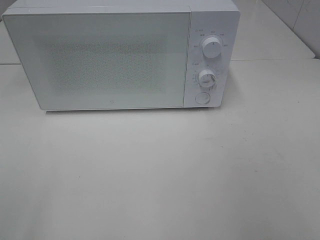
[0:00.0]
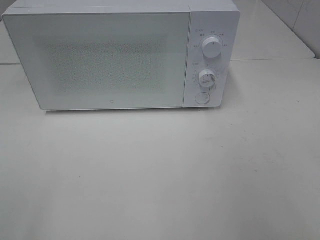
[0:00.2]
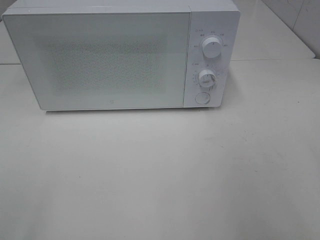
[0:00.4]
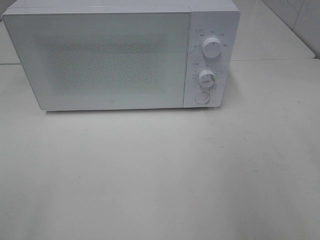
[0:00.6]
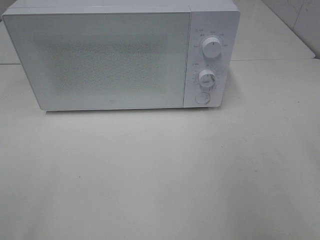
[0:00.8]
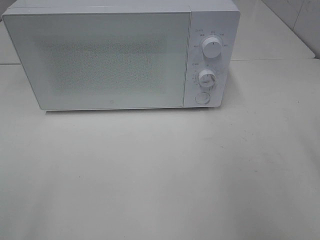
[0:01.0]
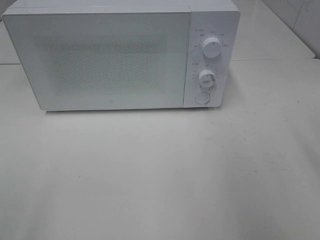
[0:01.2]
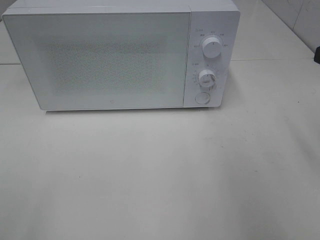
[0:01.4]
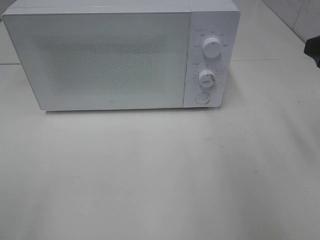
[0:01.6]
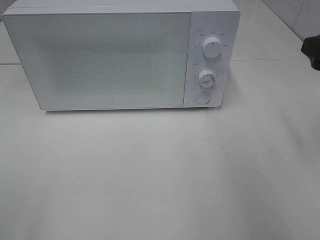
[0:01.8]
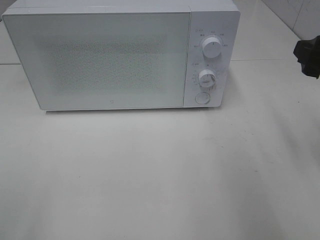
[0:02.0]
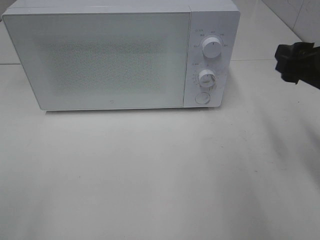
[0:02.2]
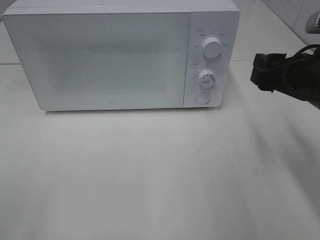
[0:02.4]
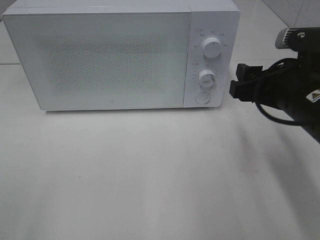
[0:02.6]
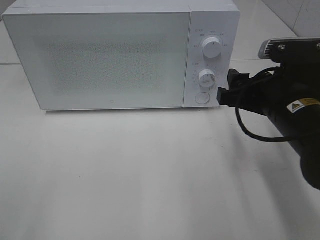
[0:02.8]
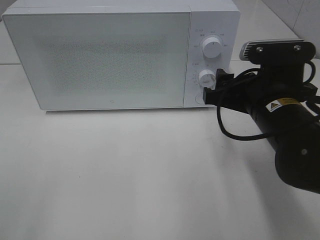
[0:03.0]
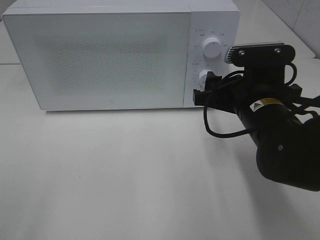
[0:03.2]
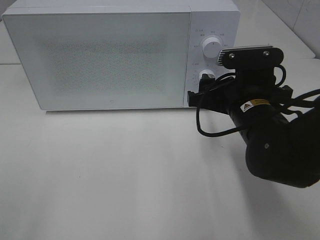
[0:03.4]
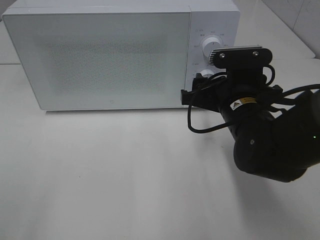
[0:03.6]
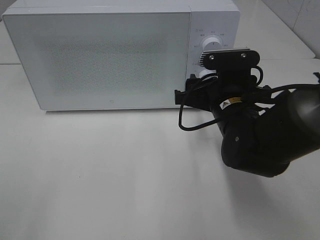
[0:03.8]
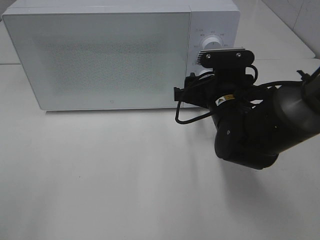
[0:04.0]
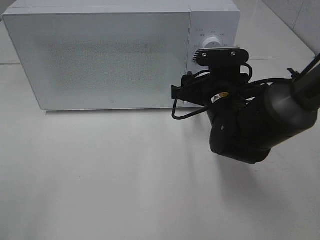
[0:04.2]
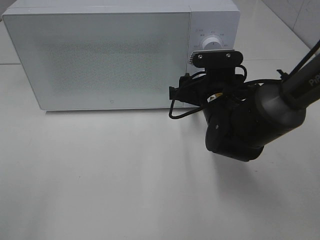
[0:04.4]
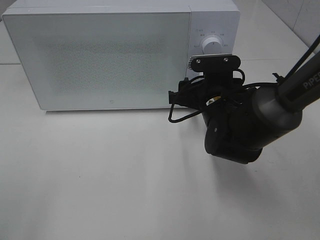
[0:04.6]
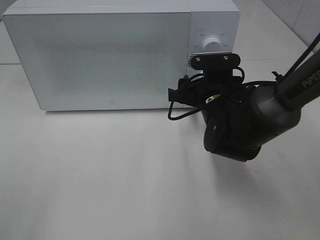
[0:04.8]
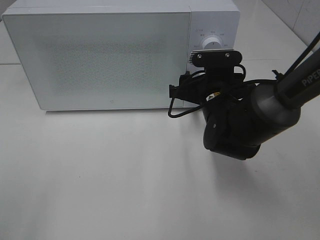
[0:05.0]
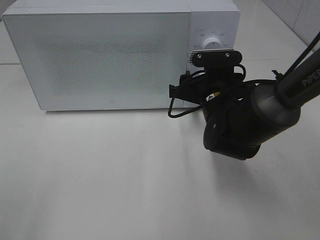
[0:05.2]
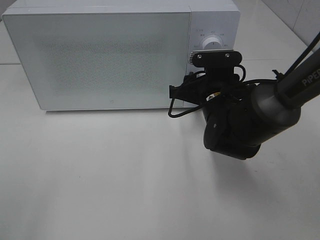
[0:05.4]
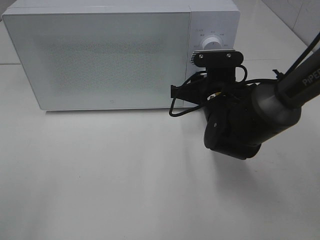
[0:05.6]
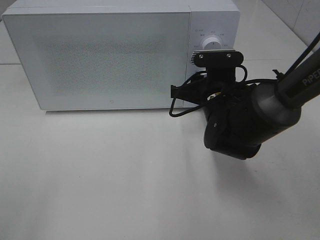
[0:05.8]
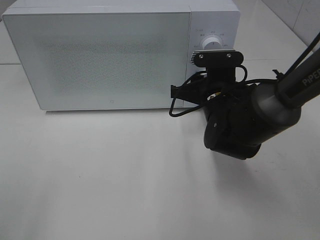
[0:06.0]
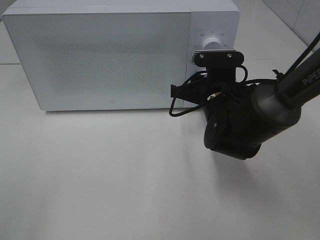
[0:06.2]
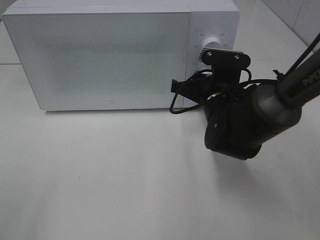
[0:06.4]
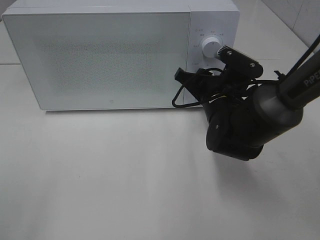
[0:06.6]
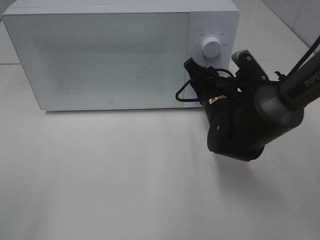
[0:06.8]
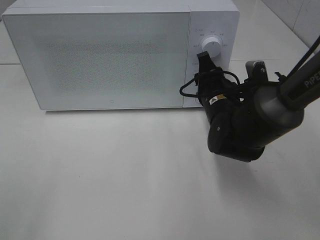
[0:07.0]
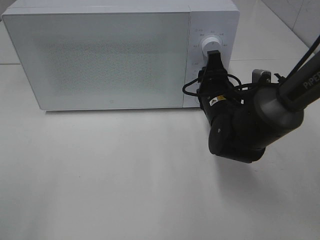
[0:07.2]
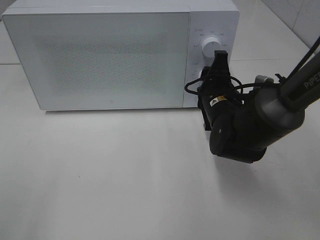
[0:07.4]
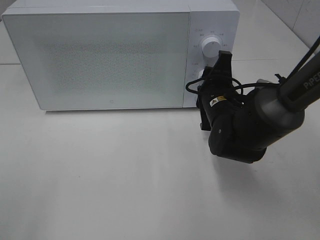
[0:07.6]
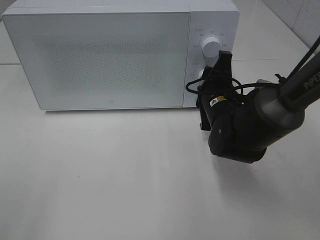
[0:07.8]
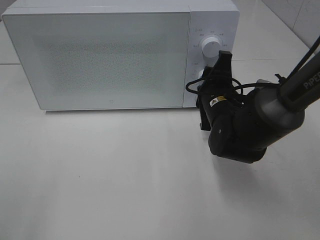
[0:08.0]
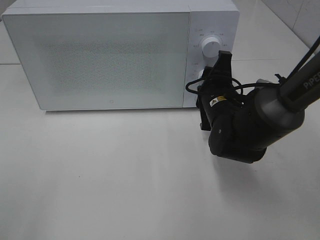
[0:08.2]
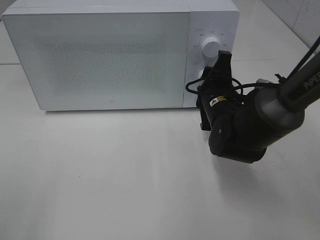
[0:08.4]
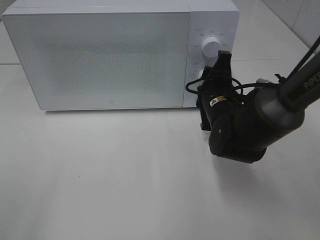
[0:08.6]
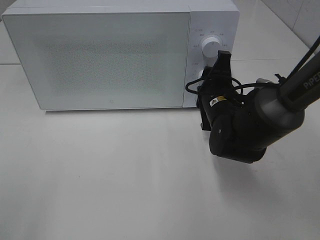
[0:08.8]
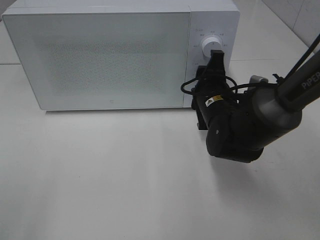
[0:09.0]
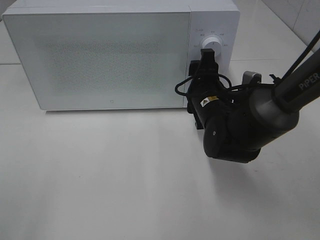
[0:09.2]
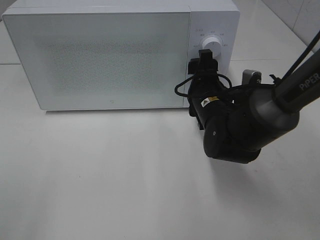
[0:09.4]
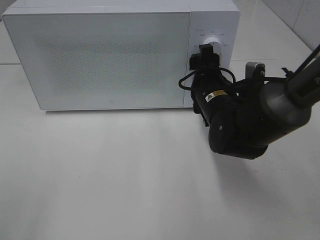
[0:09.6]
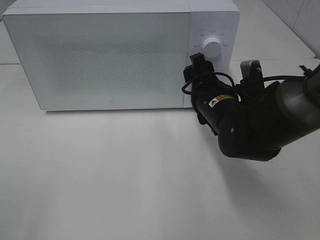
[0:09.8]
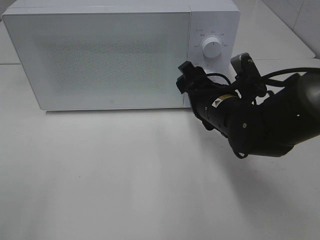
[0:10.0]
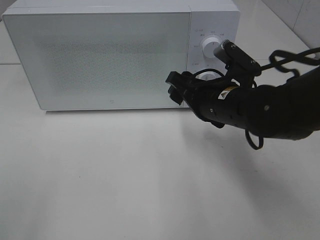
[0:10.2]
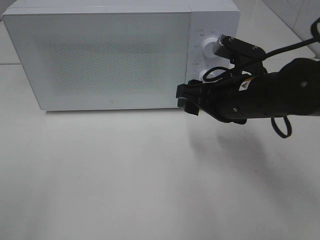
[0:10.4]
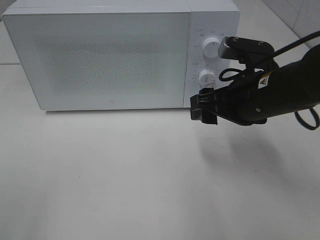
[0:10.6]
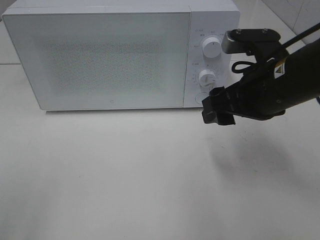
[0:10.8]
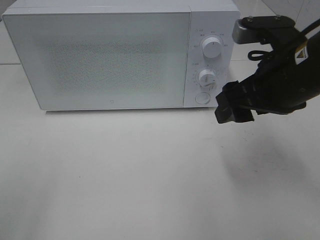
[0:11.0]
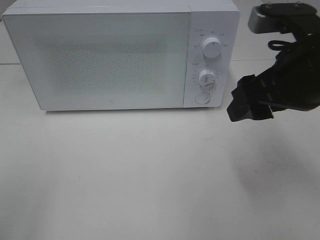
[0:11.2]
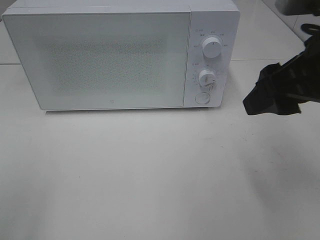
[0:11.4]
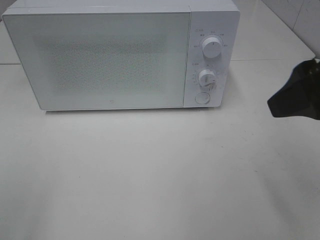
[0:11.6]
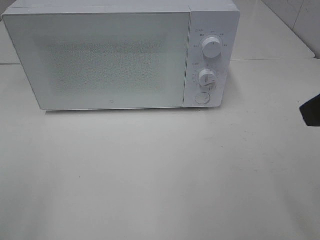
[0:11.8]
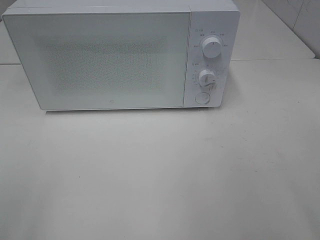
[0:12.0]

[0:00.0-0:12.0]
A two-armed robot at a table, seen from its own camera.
Task of the whole recording: Heat Sandwich.
Step, 0:00.0 to 0:09.2: Right hand: twist timer button.
0:01.6 to 0:03.0: The right gripper moves to the left and downward, approximately 15 cm.
0:03.0 to 0:04.4: The right gripper is displaced forward and downward by approximately 10 cm.
0:04.4 to 0:06.0: The right gripper closes.
0:07.6 to 0:09.0: The grippers make only small movements.
0:09.0 to 0:10.4: The right gripper is displaced upward and backward by some 10 cm.
0:10.4 to 0:12.0: The right gripper moves backward, upward and to the right, about 25 cm.

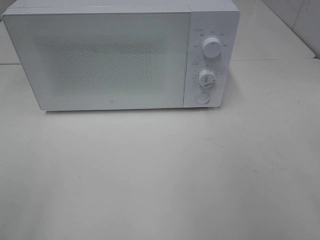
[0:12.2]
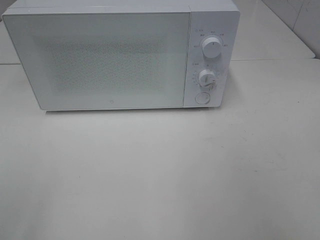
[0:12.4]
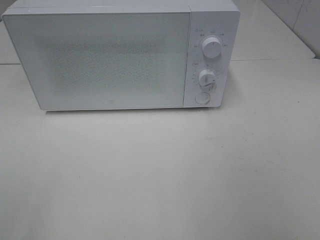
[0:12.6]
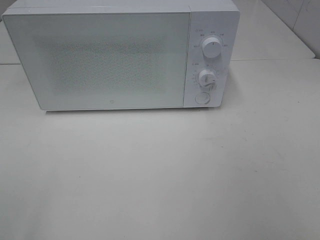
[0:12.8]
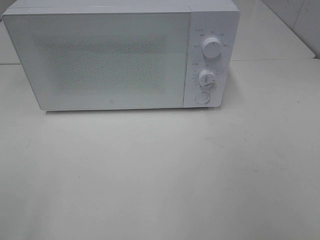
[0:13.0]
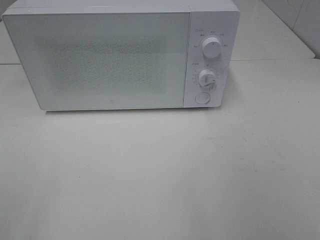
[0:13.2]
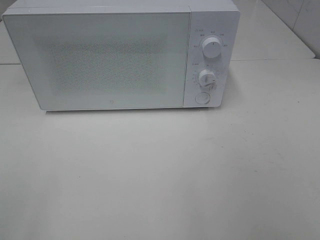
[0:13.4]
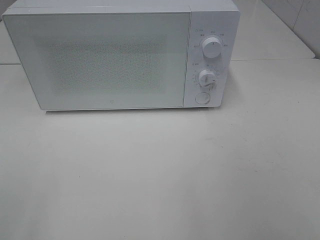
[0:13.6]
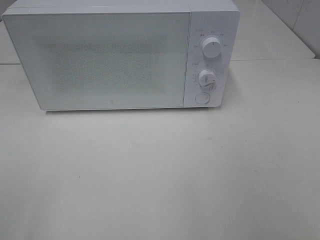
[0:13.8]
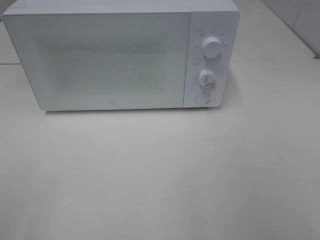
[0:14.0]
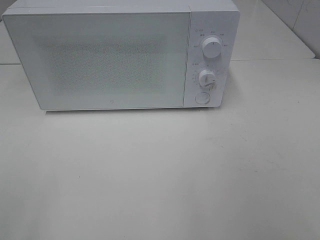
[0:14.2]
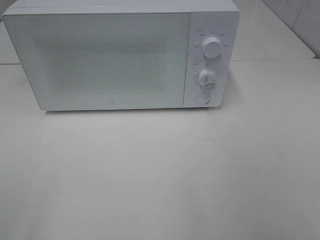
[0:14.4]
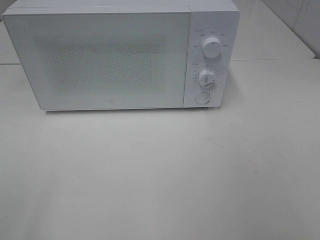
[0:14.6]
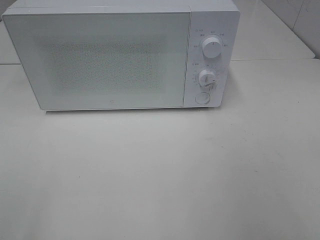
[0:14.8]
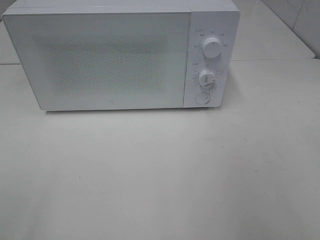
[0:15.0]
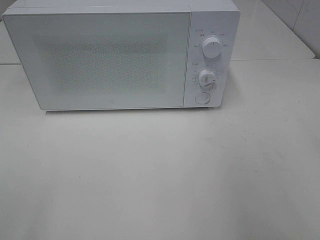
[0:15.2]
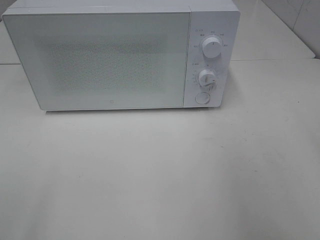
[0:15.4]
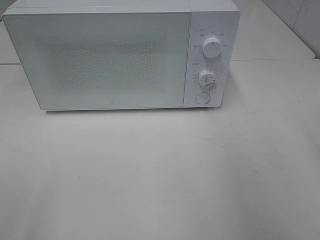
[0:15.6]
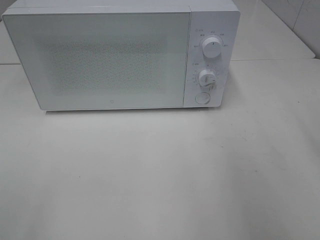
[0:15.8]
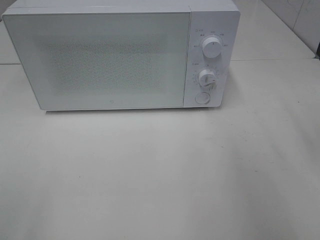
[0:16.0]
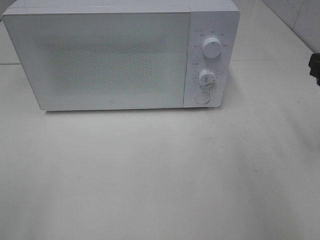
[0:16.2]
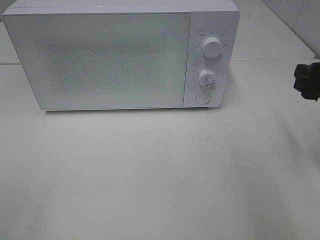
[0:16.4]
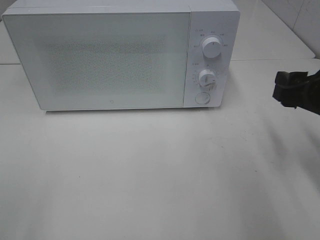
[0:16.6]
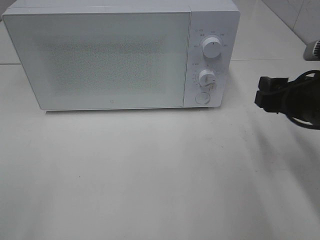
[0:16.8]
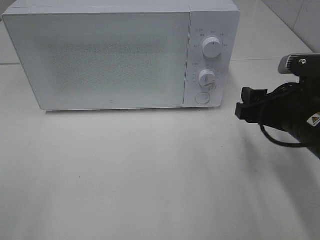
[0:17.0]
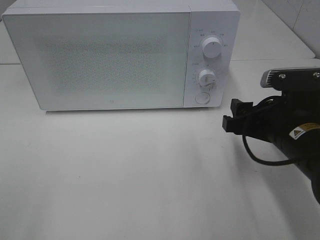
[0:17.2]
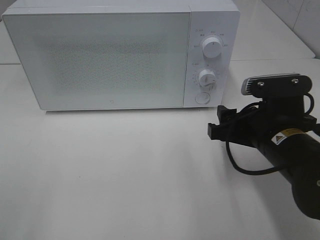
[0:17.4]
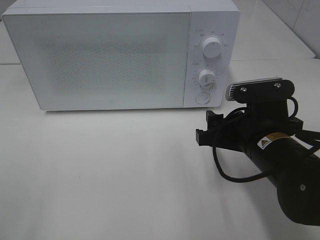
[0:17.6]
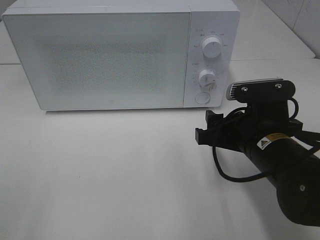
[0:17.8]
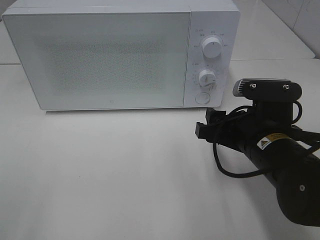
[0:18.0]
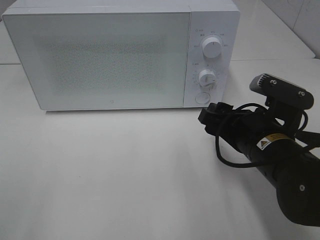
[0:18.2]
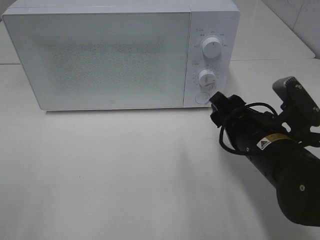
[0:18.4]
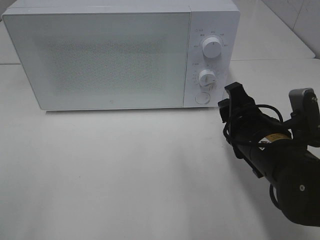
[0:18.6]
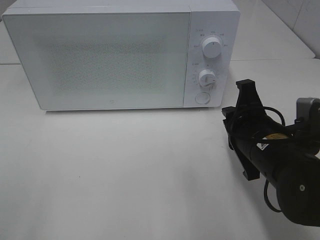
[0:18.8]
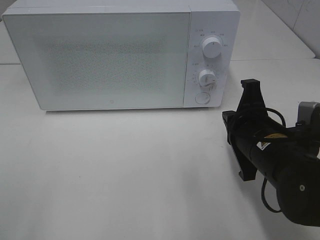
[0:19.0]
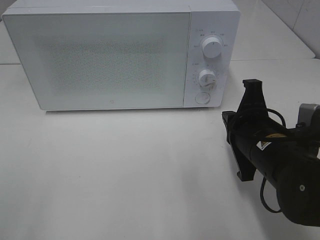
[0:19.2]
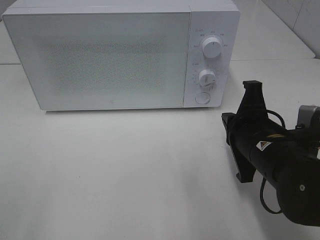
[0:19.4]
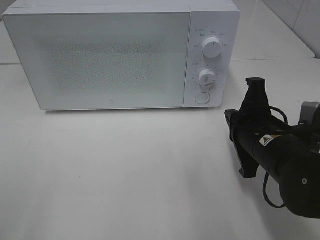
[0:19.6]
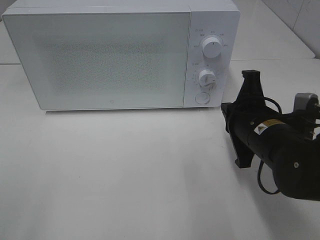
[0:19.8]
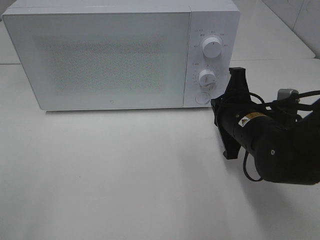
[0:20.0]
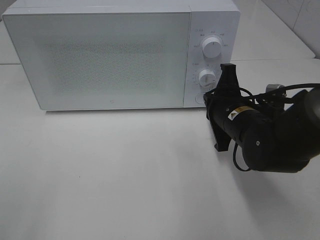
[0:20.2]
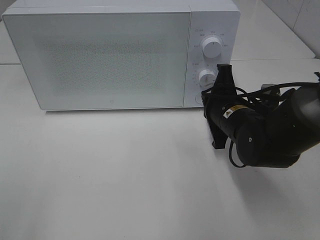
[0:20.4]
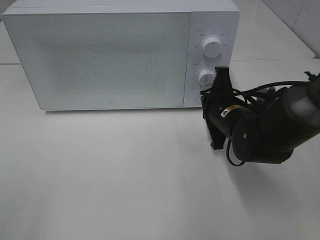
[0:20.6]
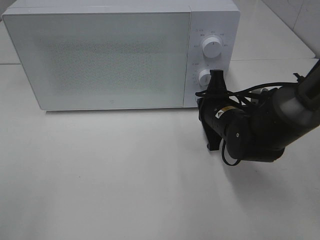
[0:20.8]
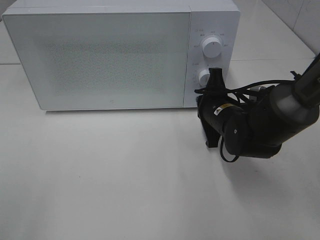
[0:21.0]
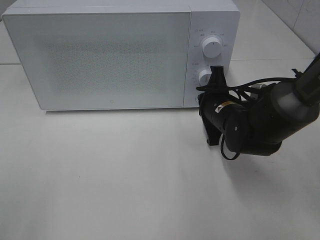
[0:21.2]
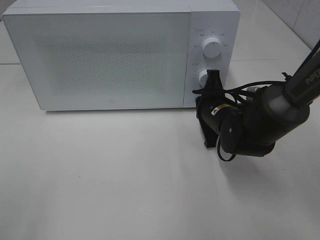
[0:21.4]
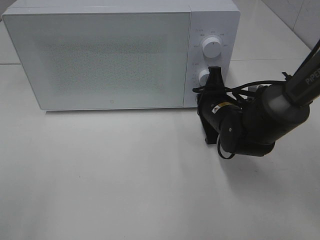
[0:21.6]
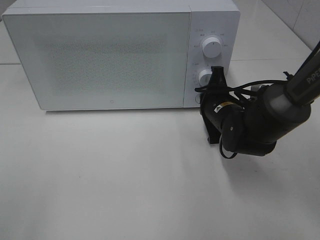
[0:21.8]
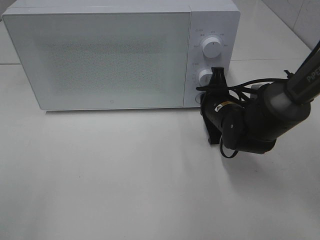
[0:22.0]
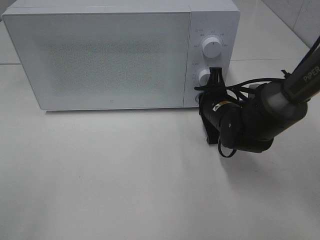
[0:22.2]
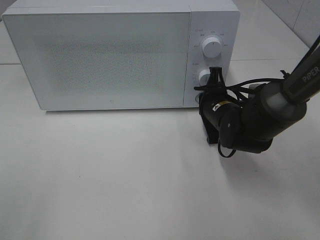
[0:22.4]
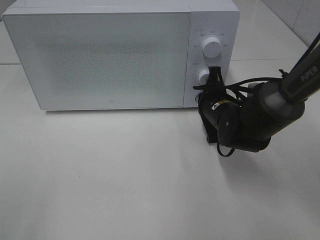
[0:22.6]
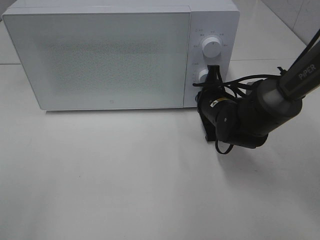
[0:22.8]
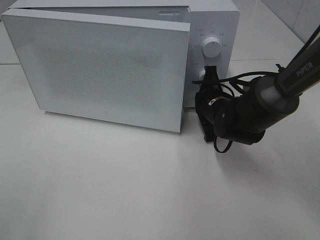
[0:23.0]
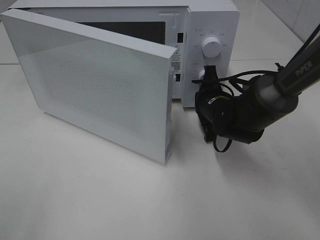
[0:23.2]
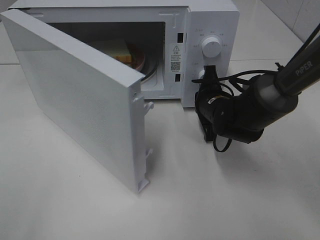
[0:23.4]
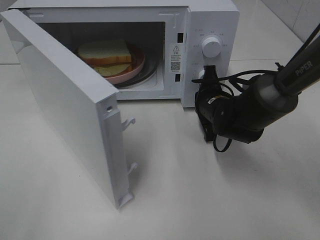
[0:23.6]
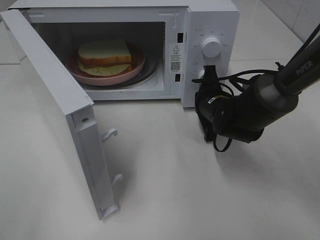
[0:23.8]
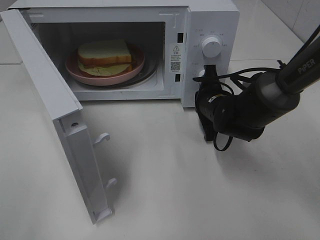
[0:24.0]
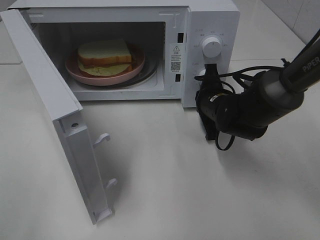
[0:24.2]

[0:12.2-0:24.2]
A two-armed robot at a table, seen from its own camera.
Task of the whole recording: Heat Sandwich.
0:15.2 to 0:16.6: The right gripper travels downward and forward by some 15 cm.
0:16.6 to 0:18.2: The right gripper travels to the left and downward by roughly 10 cm.
0:18.2 to 0:19.8: The right gripper closes.
0:19.8 to 0:21.2: The right gripper goes about 10 cm forward.
0:21.2 to 0:22.6: There are only small adjustments of the grippers.
